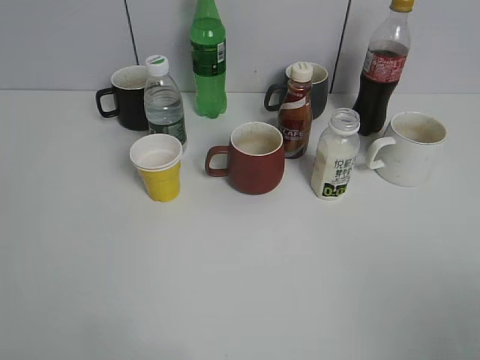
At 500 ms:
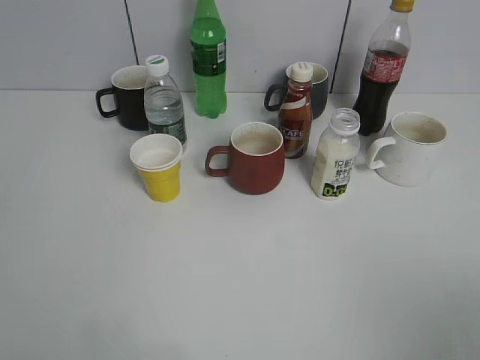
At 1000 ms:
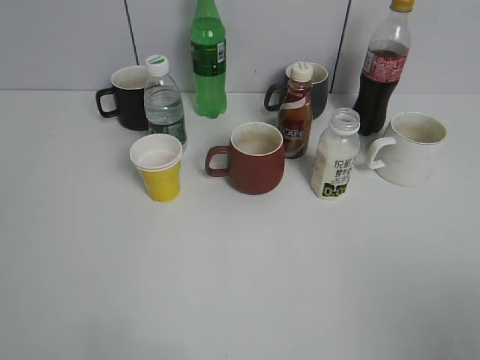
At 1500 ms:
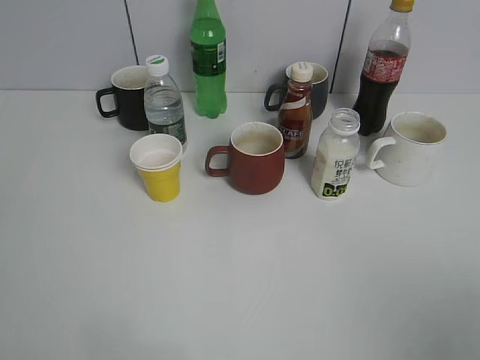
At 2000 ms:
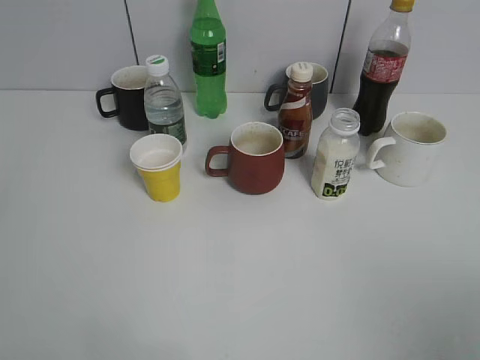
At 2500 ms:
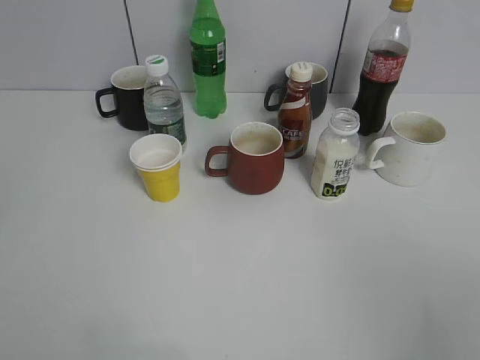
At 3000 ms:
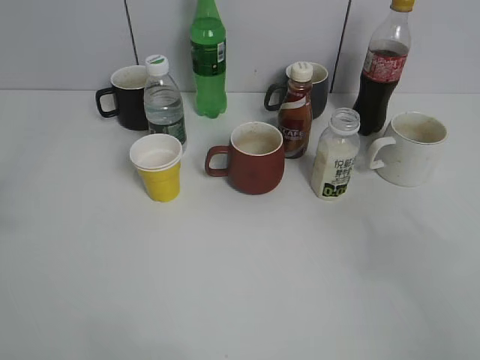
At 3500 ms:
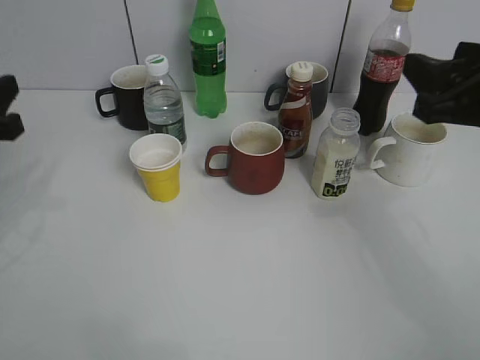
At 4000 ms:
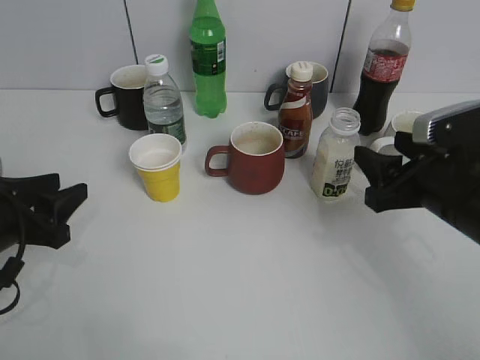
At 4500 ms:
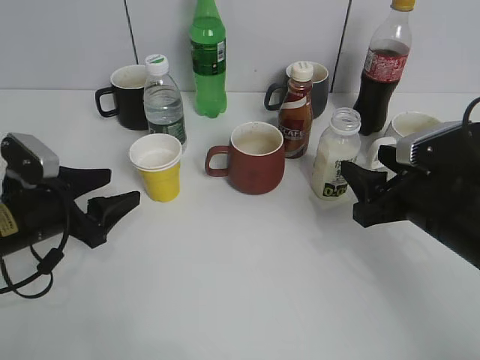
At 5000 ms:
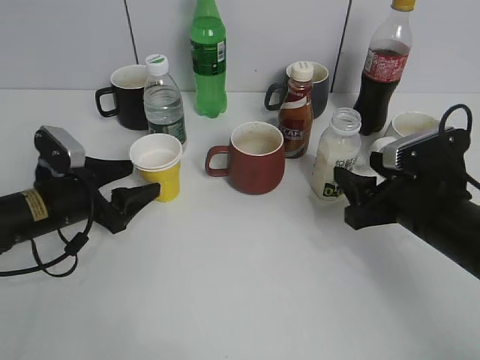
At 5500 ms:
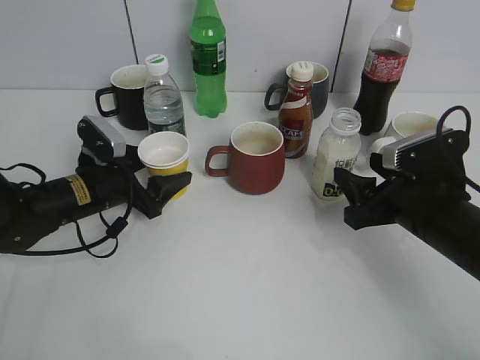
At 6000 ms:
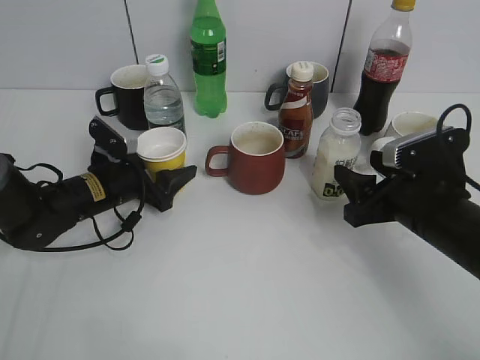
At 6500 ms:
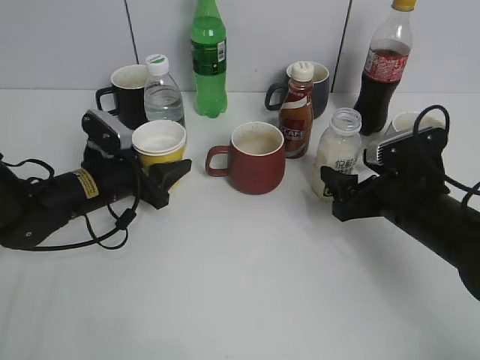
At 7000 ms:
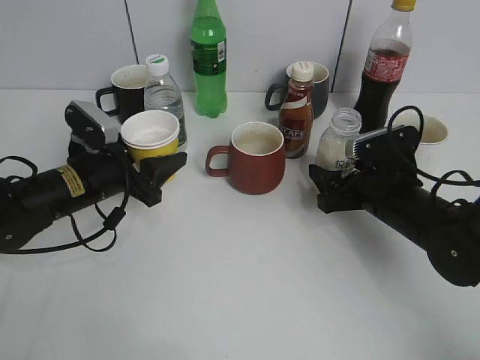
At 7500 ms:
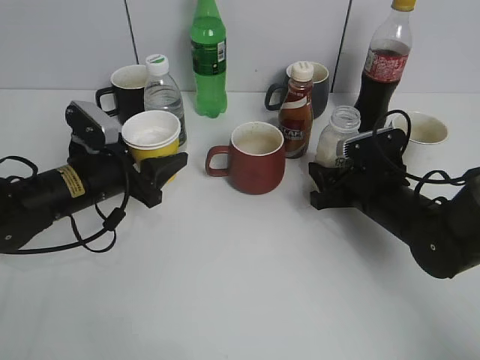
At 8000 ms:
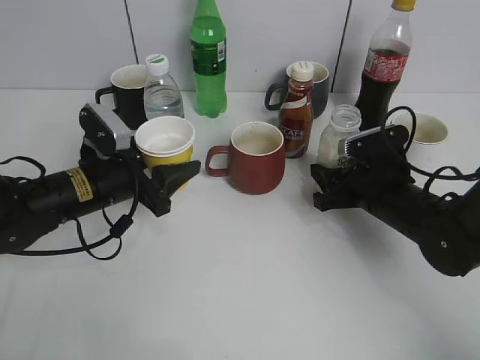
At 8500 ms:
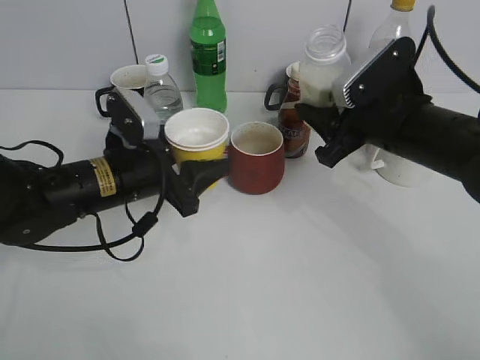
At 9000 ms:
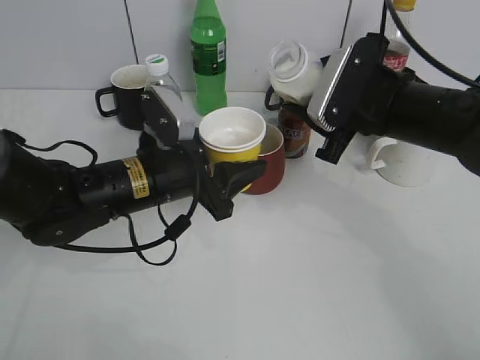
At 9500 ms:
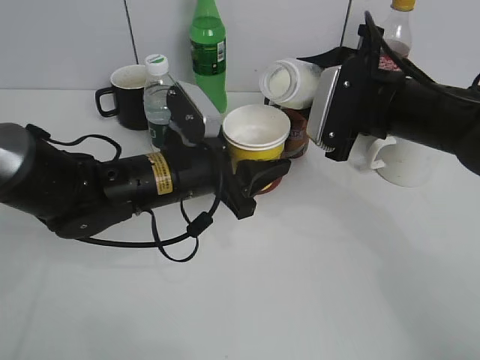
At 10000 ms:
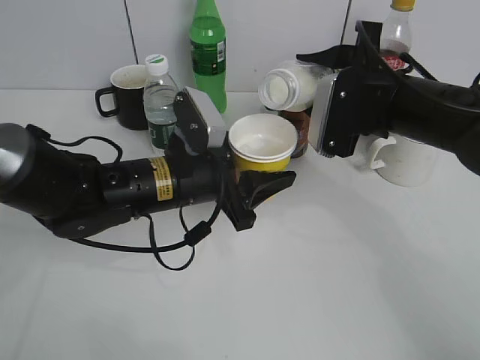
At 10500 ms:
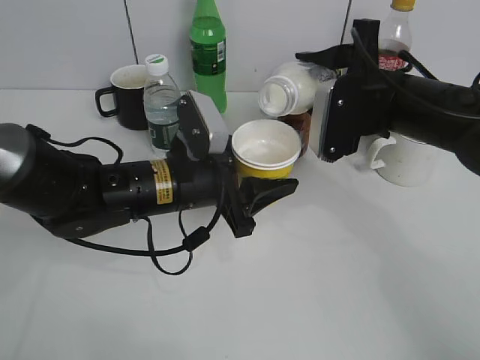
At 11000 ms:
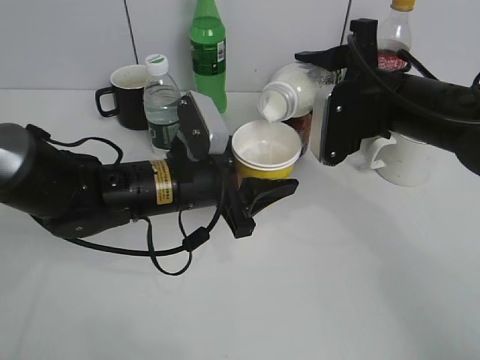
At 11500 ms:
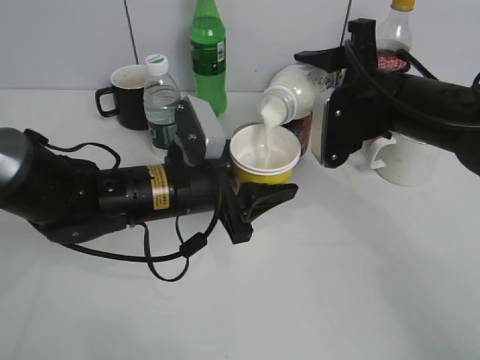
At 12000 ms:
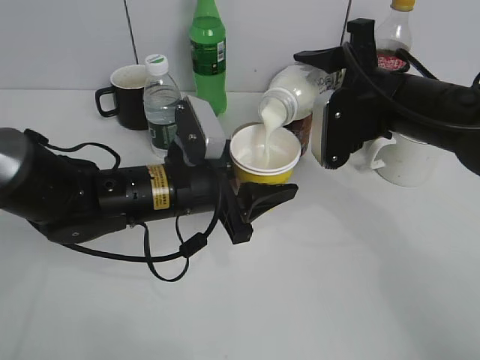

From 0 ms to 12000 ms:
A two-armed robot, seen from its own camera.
Step, from 3500 ms to 6000 ms: Grasp the yellow paper cup with left gripper.
Step, from 7000 ms to 7500 ms: Grasp the bottle with yuexian Milk with right gripper.
From 2000 ms to 4000 ms: Both grippers move forward and downward, roughly 30 cm.
From 4000 ms to 6000 ms: The right gripper moves approximately 5 cm. Meanwhile the left gripper heads forward, to the right and downward, covering some 15 cm, and opens up.
From 6000 ms to 8000 ms: The left gripper moves roughly 5 cm, and closes; the right gripper travels forward by approximately 5 cm, and opens, then closes once more.
From 8000 ms to 10000 ms: The right gripper goes about 15 cm upward. Meanwhile the left gripper heads to the right, covering some 10 cm.
From 10000 ms to 12000 ms: The grippers move only a little.

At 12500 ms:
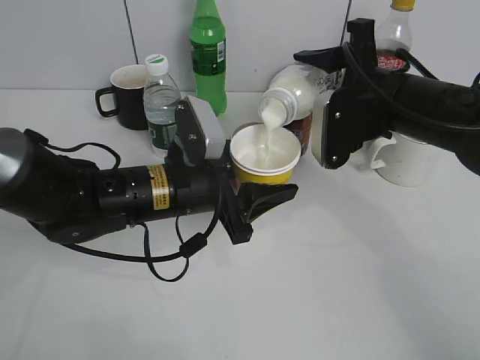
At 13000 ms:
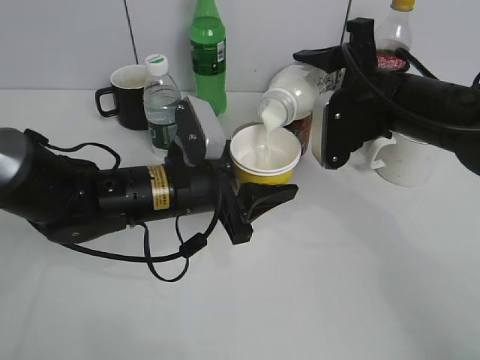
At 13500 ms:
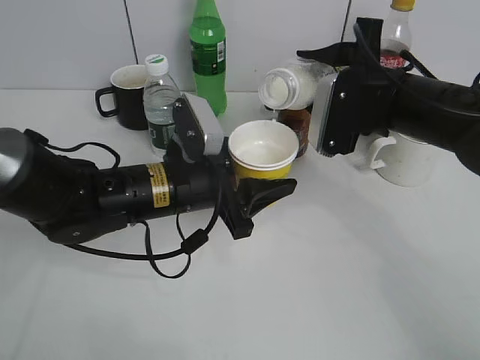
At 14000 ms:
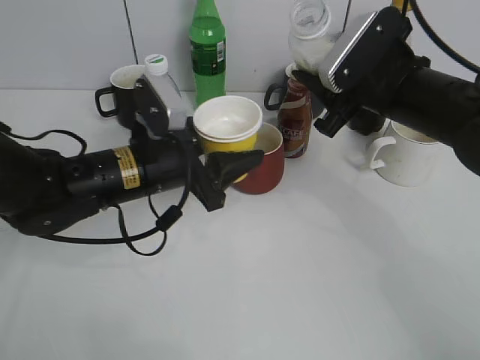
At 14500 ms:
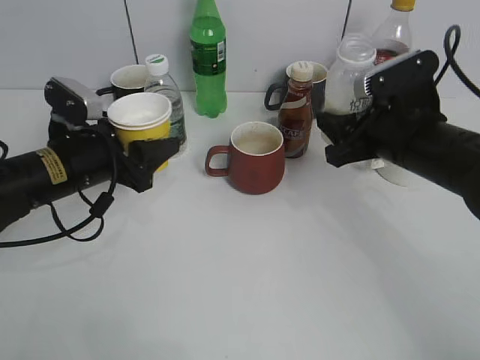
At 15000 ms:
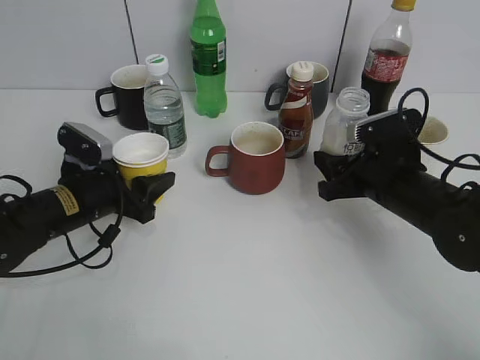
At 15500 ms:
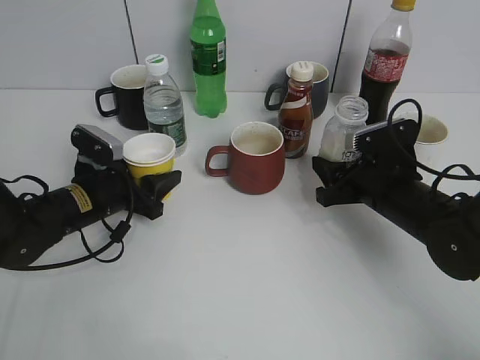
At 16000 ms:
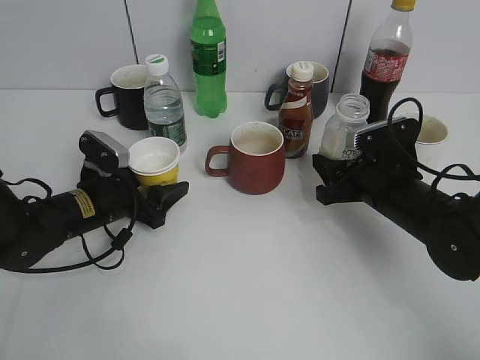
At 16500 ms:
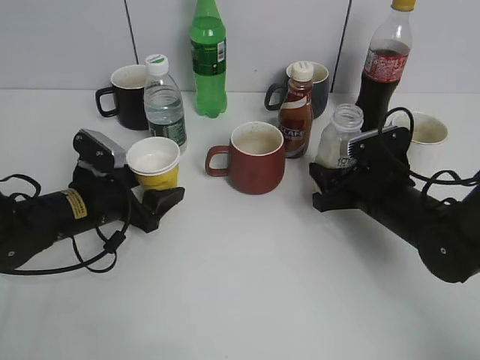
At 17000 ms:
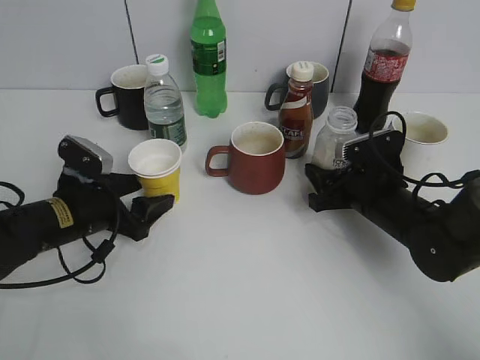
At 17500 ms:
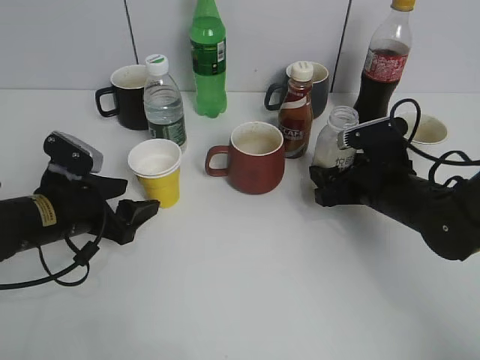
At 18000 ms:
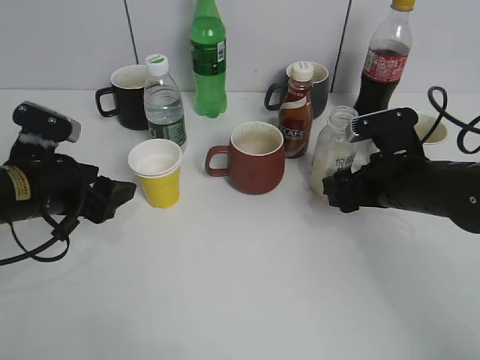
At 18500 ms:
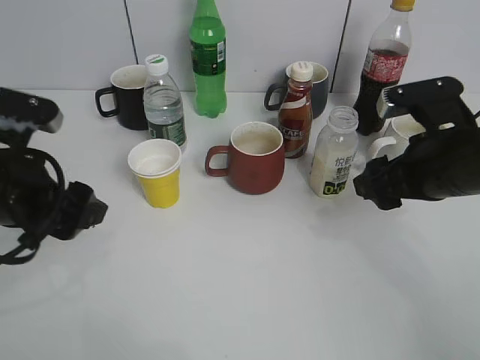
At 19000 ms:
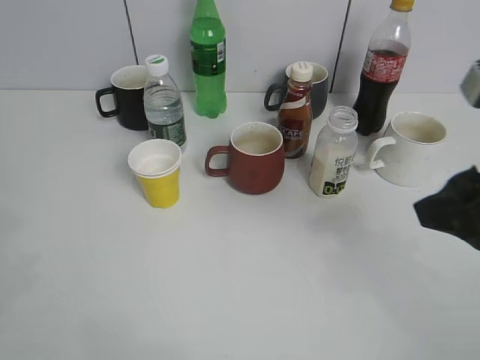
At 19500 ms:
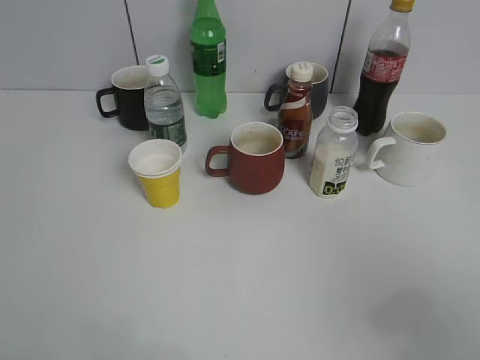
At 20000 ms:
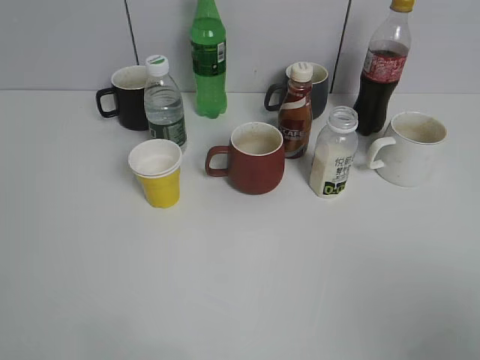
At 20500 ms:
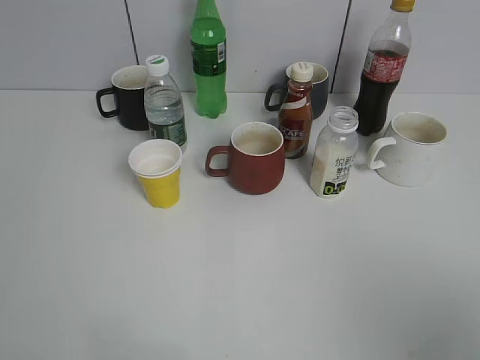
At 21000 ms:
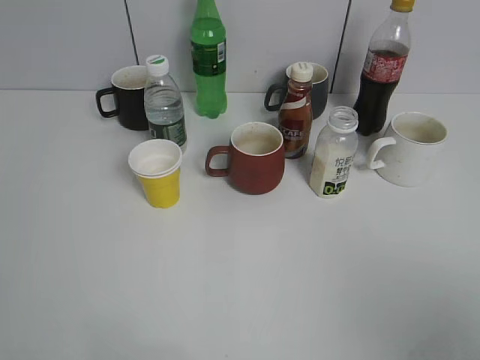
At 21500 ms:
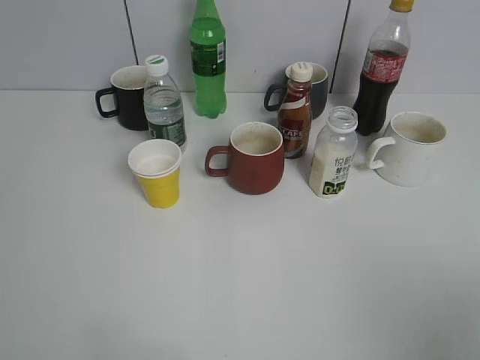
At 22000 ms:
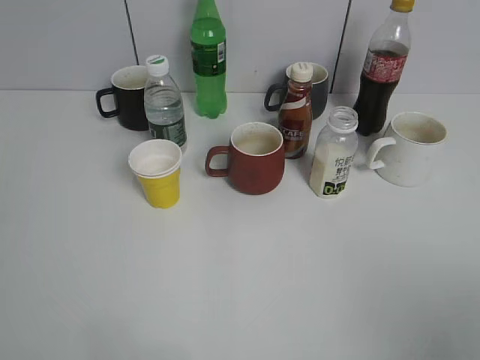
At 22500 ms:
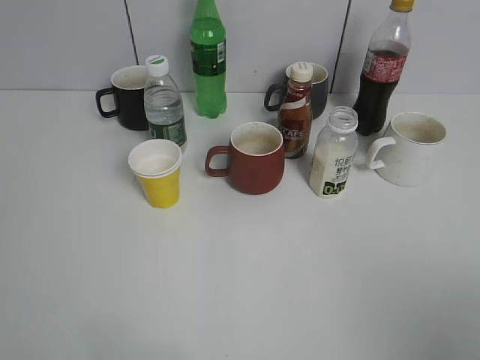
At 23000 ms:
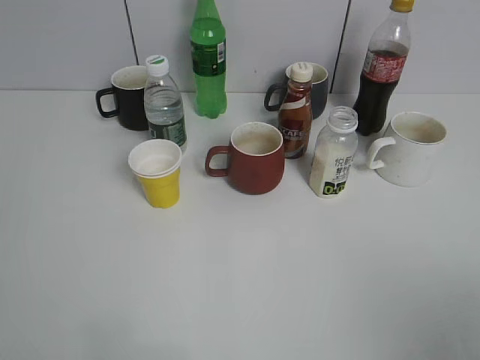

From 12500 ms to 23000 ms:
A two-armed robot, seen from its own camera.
Step, from 14000 ms to 18000 ms: Place the yuexian Milk bottle on the table with right gripper.
From 12500 ms to 14500 ms: The left gripper heads to the left, covering some 10 cm.
From 14500 ms to 16500 ms: The two grippers go about 10 cm downward. The left gripper opens up.
From 16500 ms to 19000 ms: The two grippers go approximately 25 cm upward and backward. The right gripper opens up.
From 19000 ms to 21000 ms: The right gripper goes approximately 20 cm backward and to the right.
